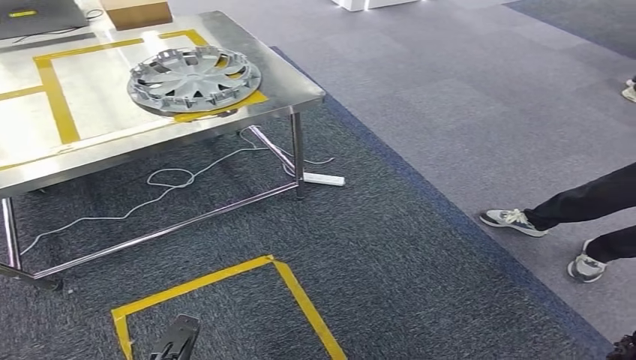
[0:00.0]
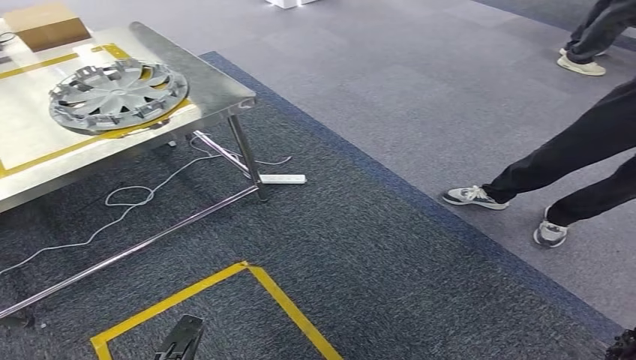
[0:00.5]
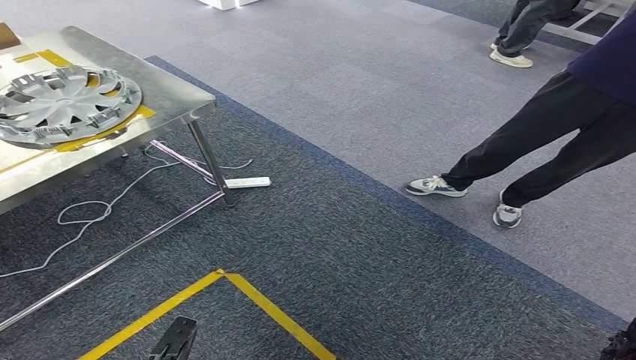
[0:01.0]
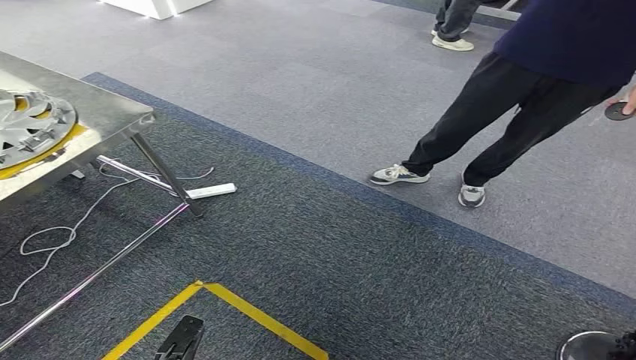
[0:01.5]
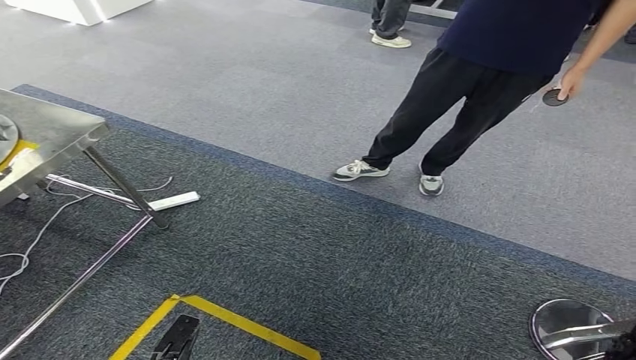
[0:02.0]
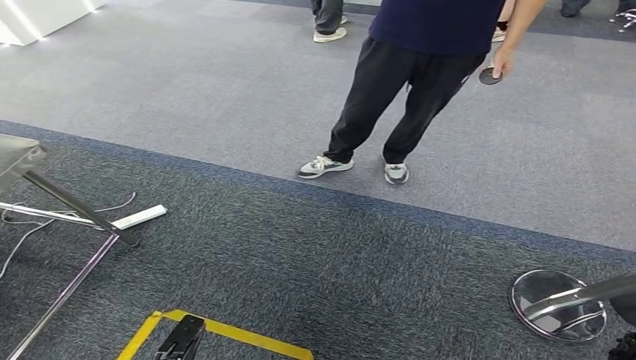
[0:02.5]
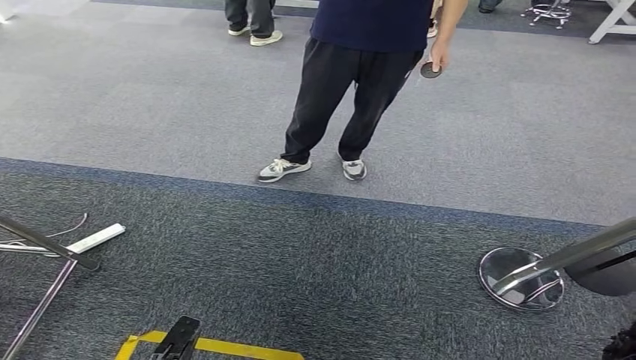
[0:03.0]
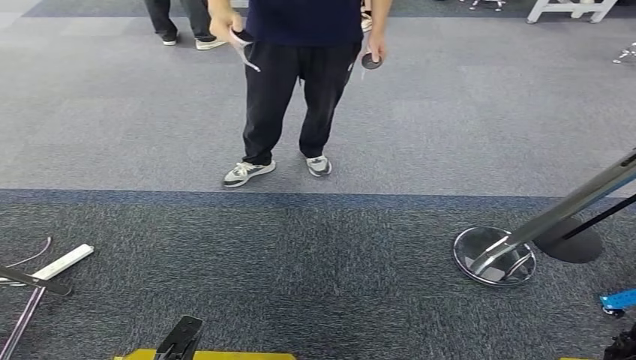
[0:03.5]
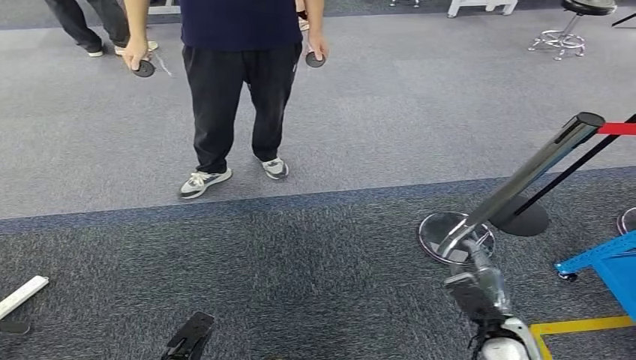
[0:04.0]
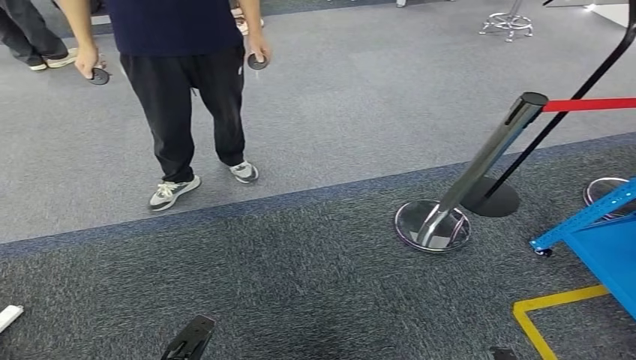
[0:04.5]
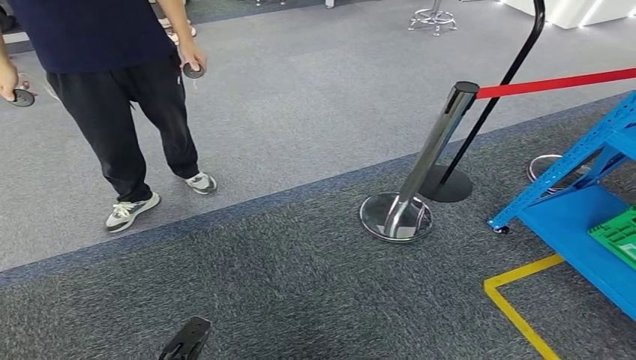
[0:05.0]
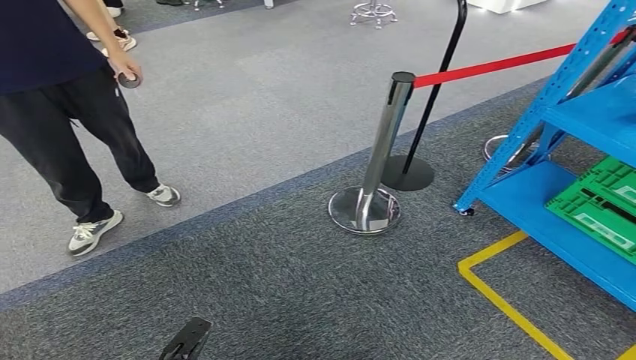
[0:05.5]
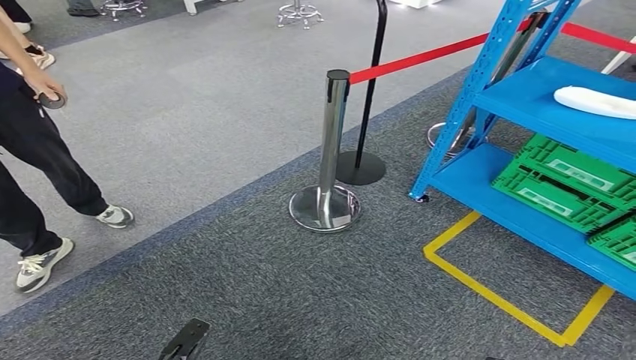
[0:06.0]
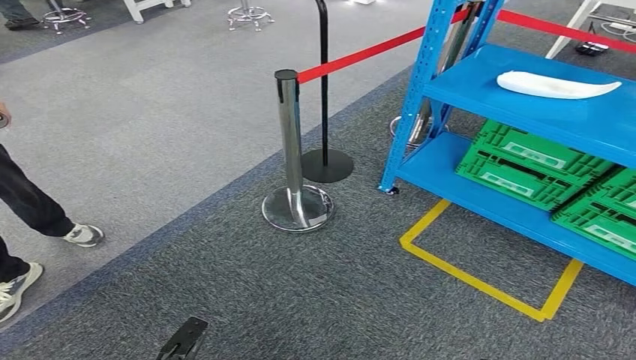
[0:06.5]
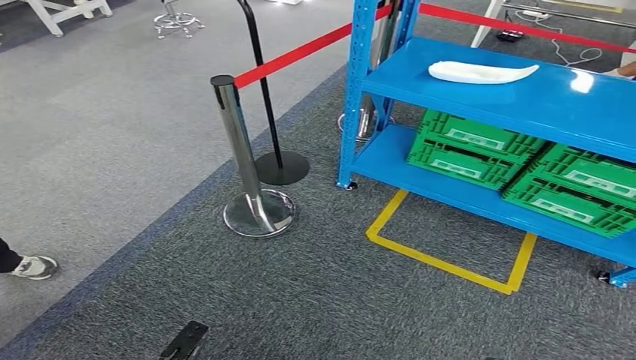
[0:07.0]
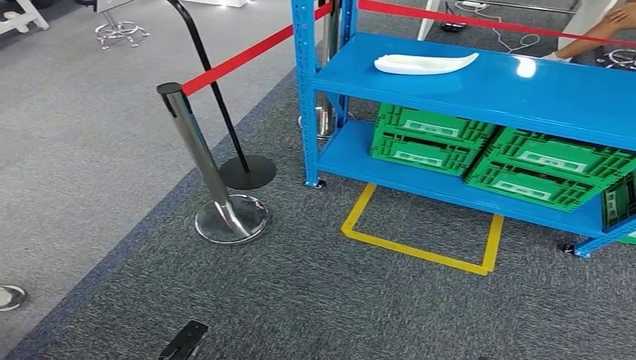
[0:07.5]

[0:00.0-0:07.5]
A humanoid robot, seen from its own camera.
Step, 0:00.0 to 0:07.5: Move to the initial position of the workbench.
